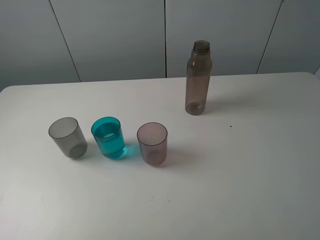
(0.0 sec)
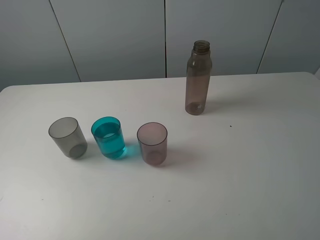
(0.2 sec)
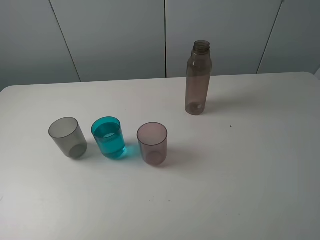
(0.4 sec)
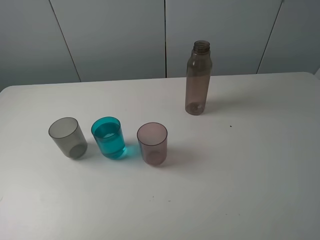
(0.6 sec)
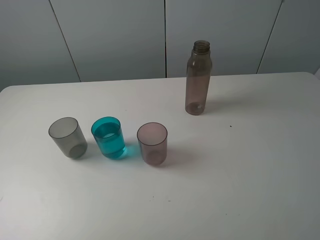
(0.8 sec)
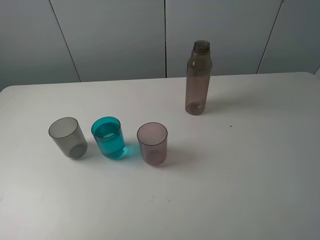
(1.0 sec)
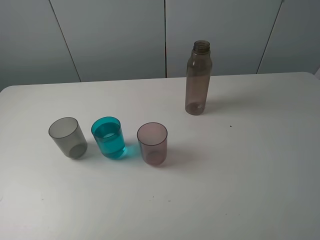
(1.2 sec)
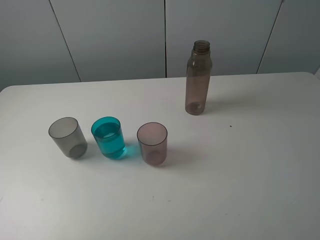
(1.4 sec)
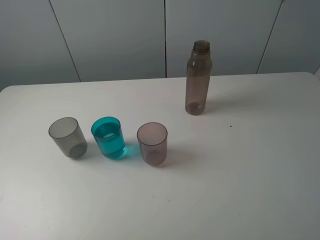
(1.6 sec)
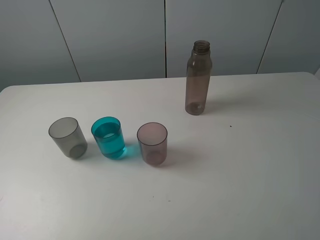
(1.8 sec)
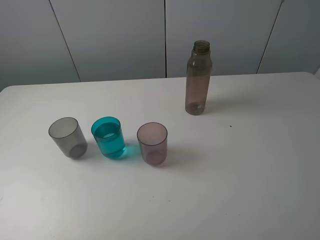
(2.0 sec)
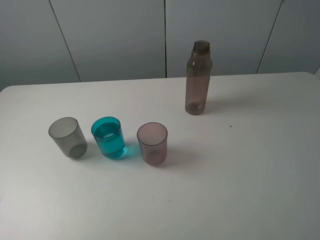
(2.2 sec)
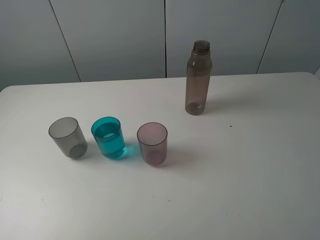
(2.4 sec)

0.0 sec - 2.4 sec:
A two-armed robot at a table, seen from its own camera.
Task of the whole recording: pick up the bottle filled with water and pour water into the middle cup of the three cups.
1.2 sec - 2.4 sec: Both grippers stay put.
